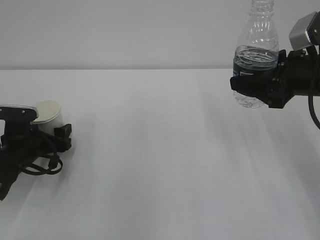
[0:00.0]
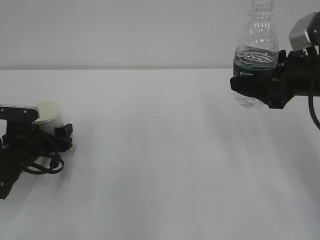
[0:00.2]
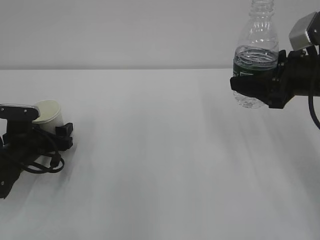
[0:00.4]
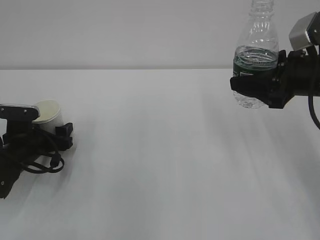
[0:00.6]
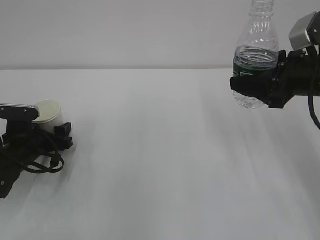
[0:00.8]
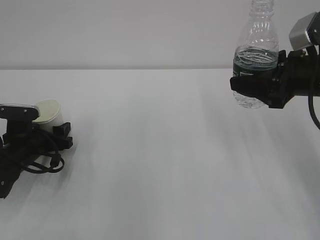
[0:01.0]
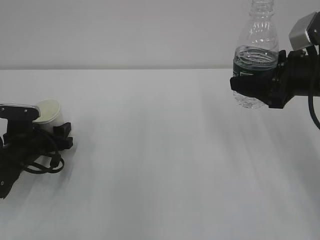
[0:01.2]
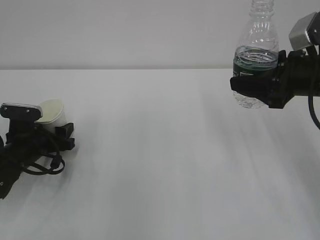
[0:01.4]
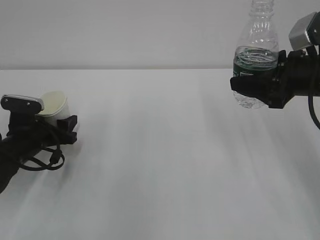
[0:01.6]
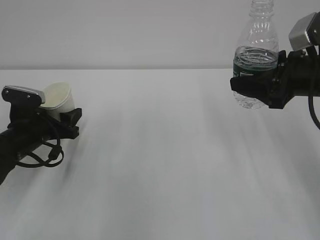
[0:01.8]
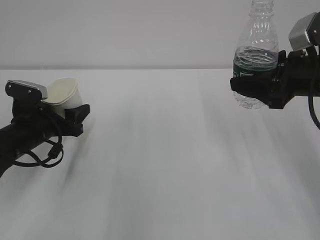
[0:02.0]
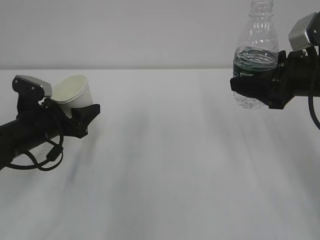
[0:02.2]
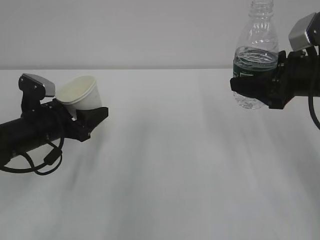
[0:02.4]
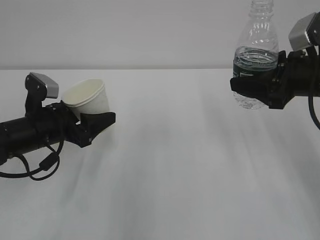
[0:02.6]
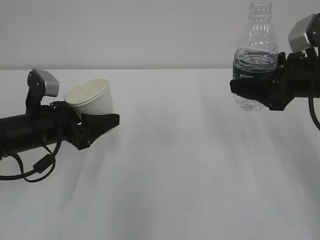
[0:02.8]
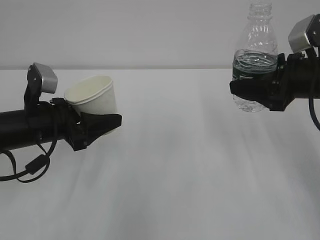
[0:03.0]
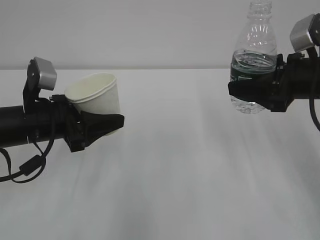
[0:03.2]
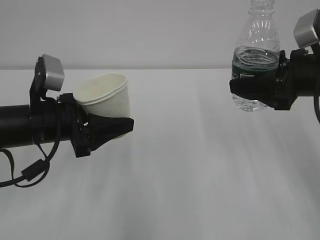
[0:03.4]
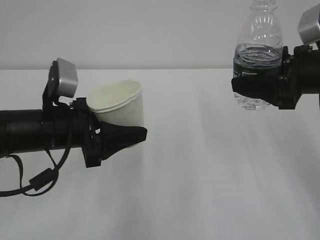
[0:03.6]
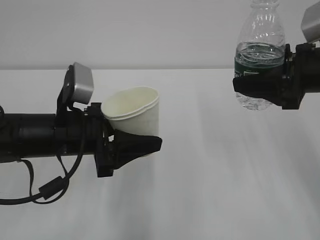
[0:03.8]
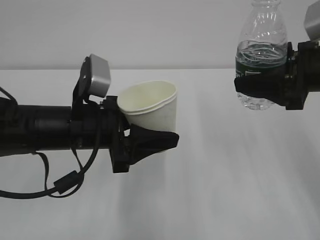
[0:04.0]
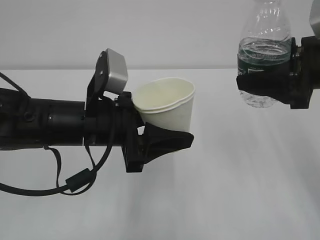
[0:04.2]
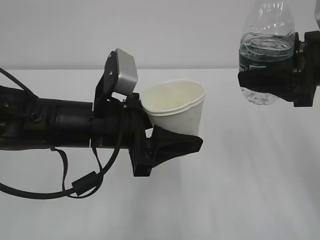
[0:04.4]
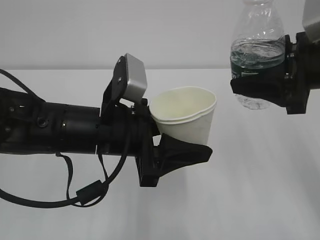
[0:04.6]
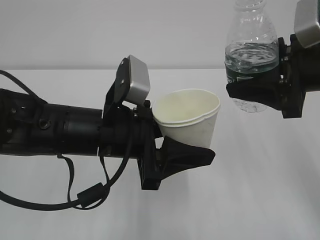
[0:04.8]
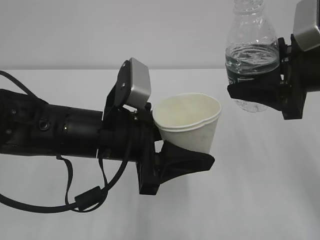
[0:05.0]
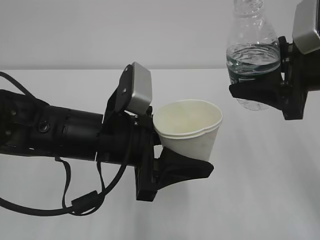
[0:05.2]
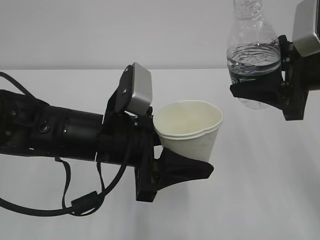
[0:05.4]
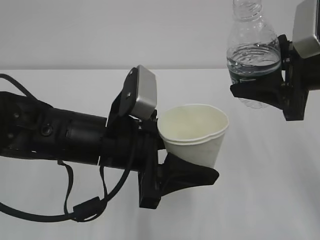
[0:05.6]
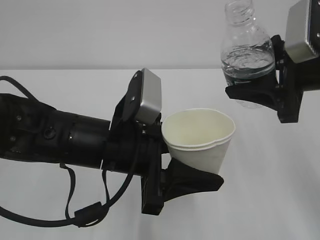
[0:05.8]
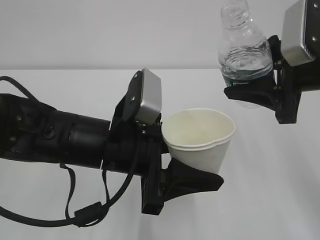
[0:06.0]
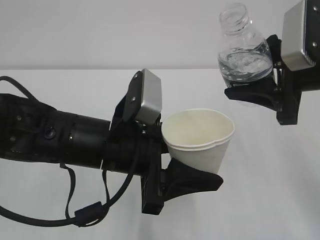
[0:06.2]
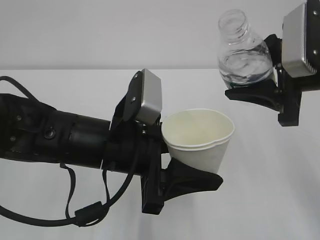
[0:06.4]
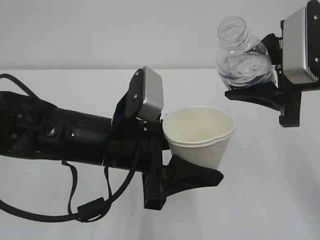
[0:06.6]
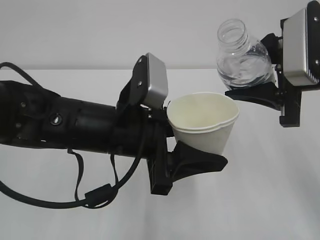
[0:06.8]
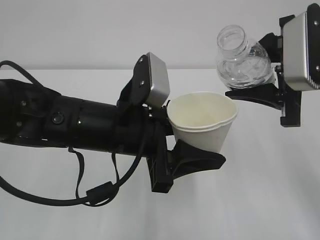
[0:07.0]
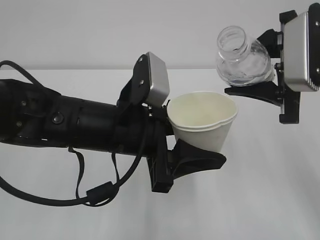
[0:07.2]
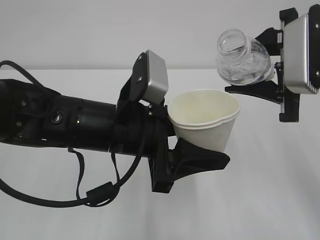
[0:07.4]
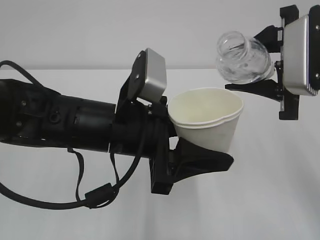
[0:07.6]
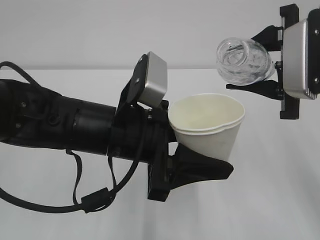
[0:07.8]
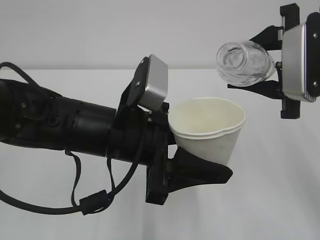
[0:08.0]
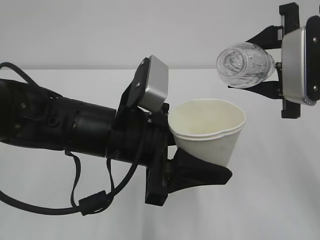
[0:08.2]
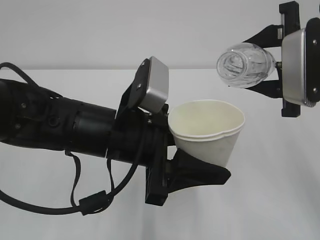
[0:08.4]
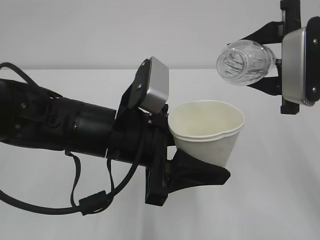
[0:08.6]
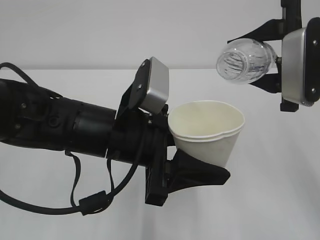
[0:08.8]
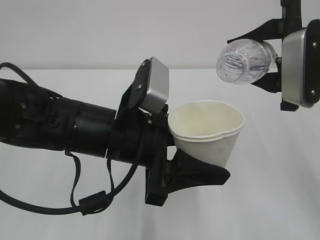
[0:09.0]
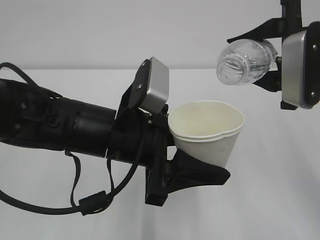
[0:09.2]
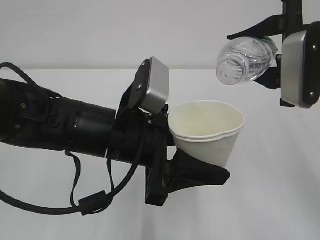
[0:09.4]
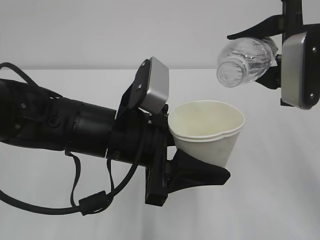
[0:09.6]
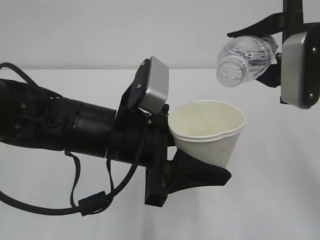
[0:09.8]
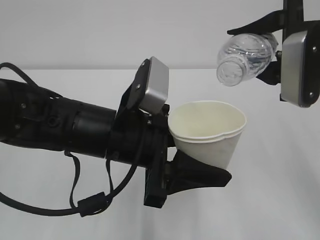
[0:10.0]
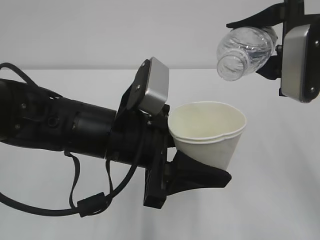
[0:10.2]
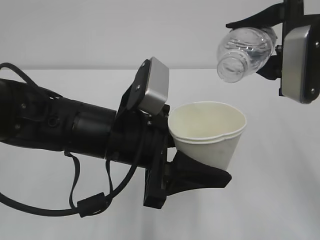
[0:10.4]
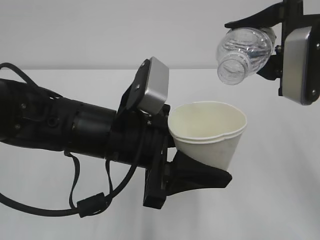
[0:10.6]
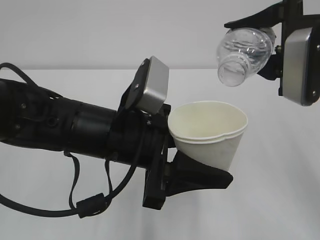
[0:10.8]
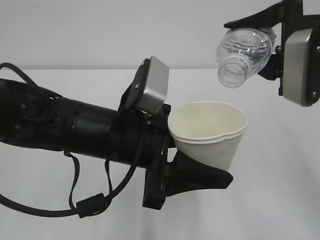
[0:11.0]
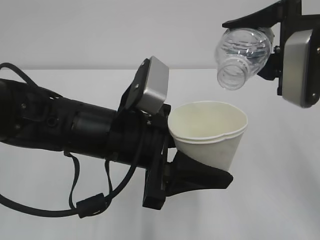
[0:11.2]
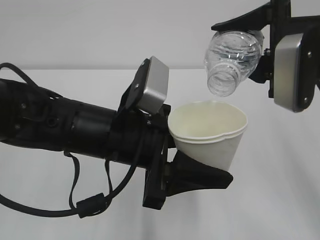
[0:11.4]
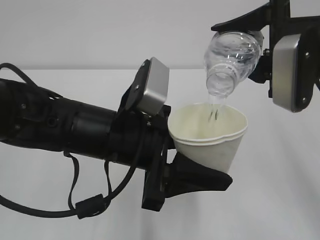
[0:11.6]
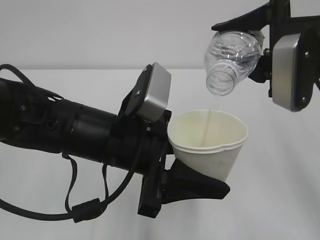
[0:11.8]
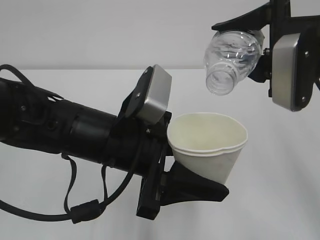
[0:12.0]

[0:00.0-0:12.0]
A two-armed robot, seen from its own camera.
0:00.0 to 0:01.6: The left gripper closes up.
0:01.6 to 0:03.0: The left gripper shifts approximately 10 cm upward and to the right.
0:03.0 to 0:04.4: The right gripper travels upward by approximately 5 cm. The left gripper heads to the right and backward, covering about 15 cm.
0:07.6 to 0:09.0: There are only small adjustments of the grippers.
0:09.0 to 0:12.0: There are only small adjustments of the grippers.

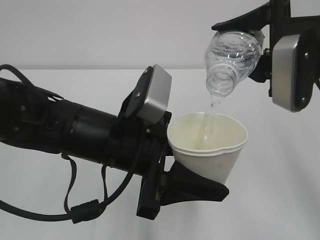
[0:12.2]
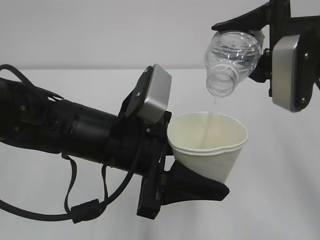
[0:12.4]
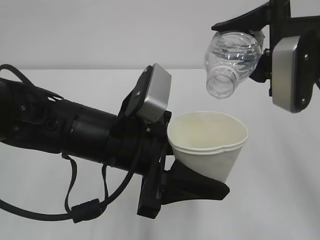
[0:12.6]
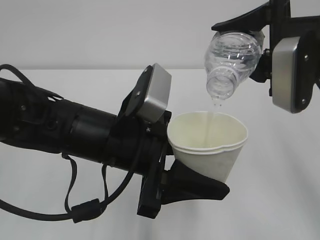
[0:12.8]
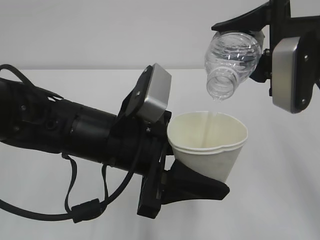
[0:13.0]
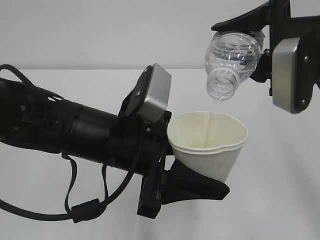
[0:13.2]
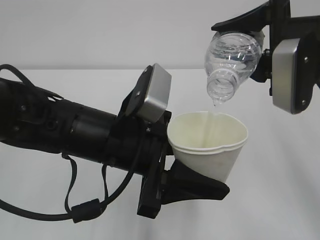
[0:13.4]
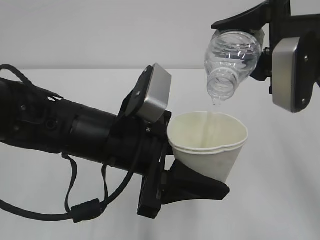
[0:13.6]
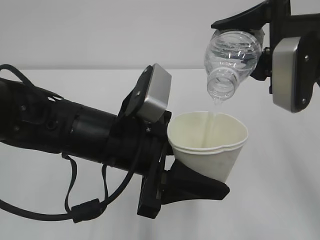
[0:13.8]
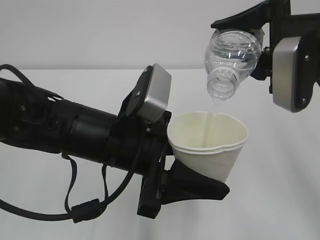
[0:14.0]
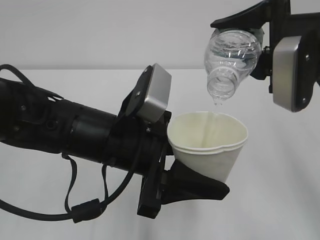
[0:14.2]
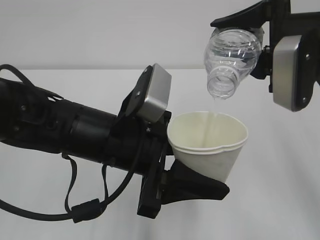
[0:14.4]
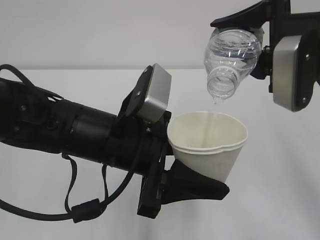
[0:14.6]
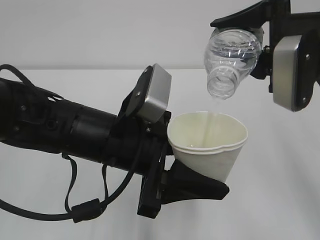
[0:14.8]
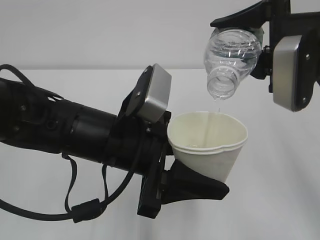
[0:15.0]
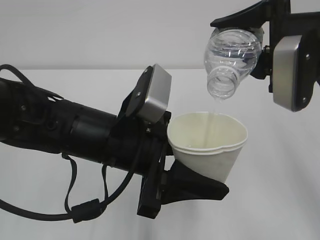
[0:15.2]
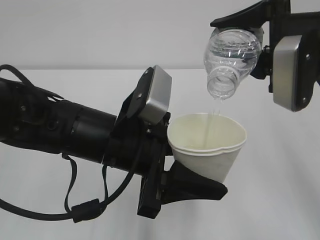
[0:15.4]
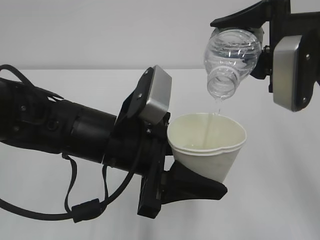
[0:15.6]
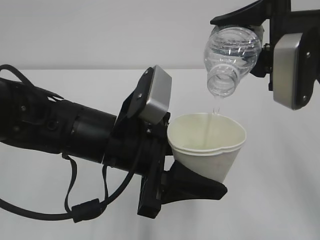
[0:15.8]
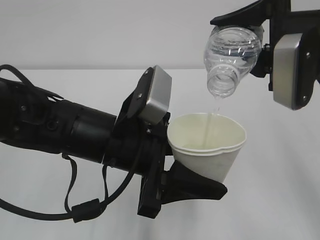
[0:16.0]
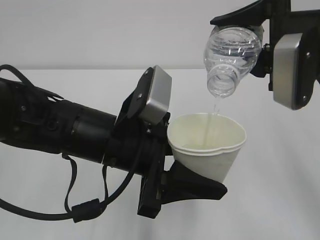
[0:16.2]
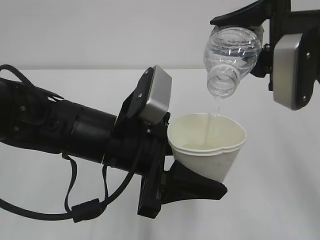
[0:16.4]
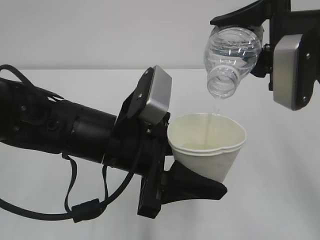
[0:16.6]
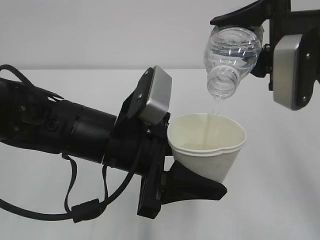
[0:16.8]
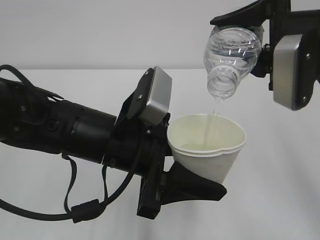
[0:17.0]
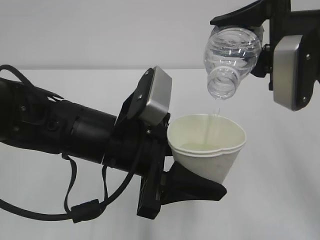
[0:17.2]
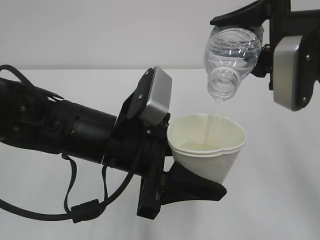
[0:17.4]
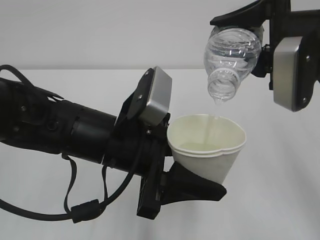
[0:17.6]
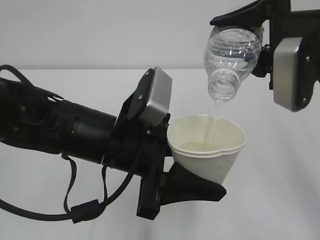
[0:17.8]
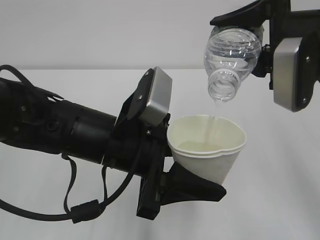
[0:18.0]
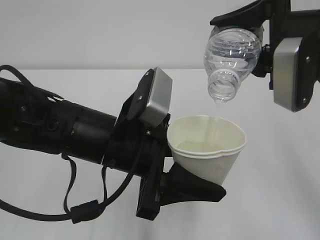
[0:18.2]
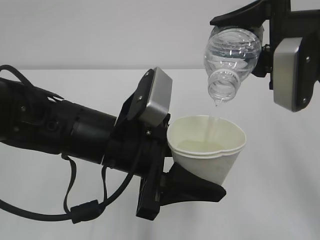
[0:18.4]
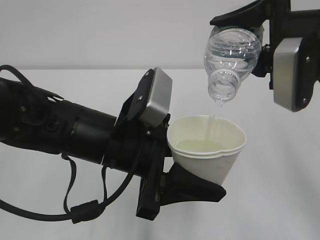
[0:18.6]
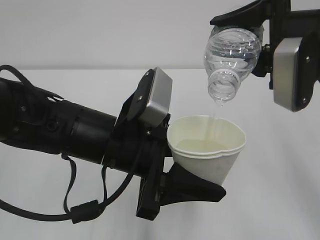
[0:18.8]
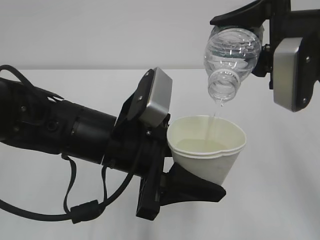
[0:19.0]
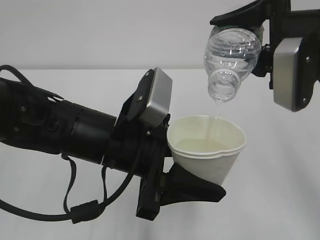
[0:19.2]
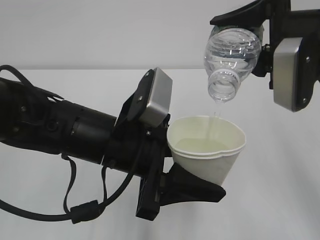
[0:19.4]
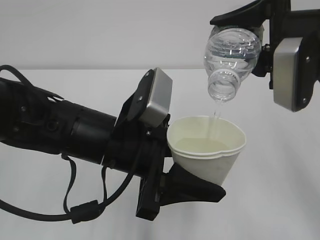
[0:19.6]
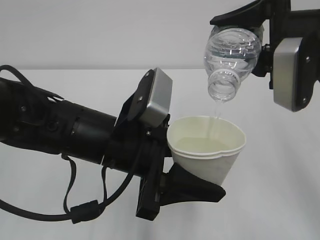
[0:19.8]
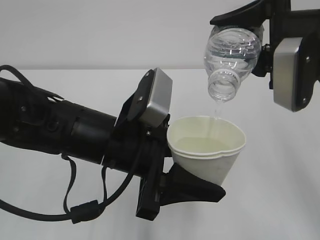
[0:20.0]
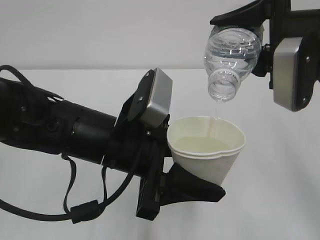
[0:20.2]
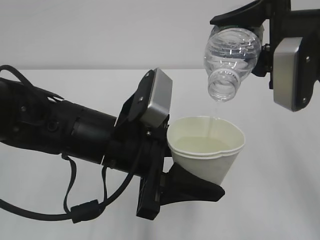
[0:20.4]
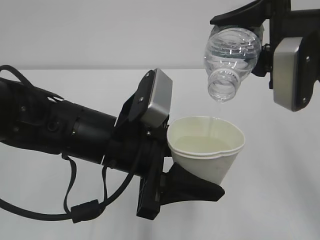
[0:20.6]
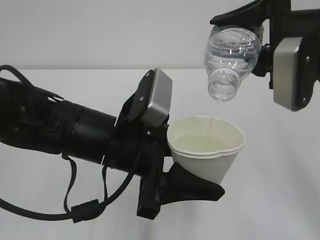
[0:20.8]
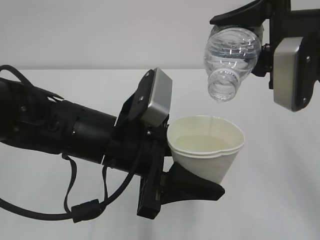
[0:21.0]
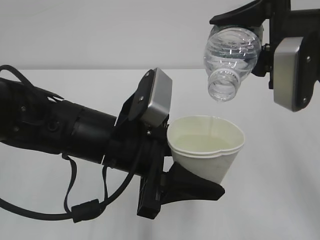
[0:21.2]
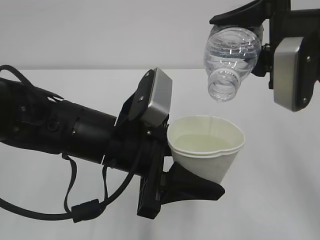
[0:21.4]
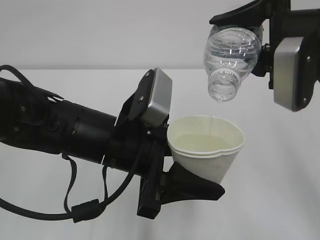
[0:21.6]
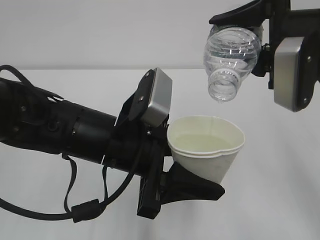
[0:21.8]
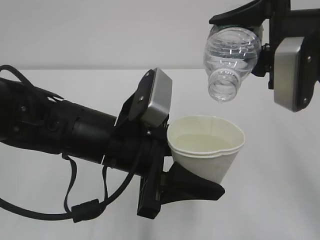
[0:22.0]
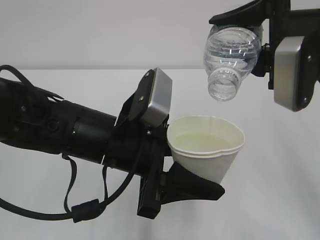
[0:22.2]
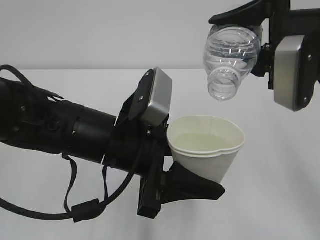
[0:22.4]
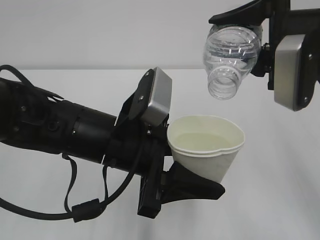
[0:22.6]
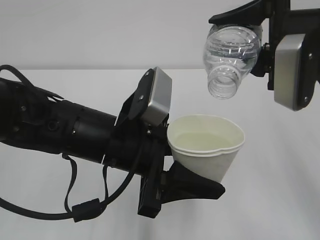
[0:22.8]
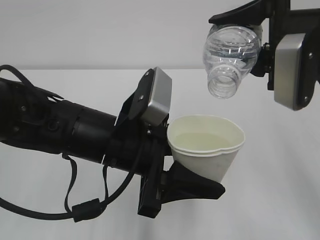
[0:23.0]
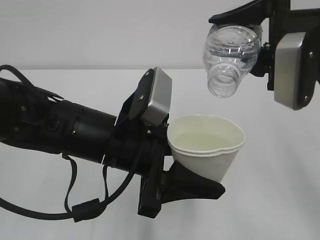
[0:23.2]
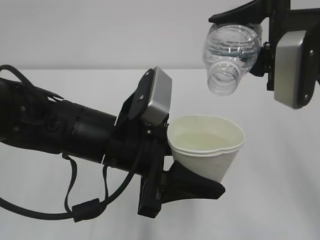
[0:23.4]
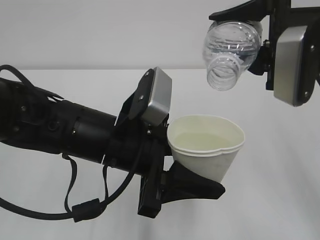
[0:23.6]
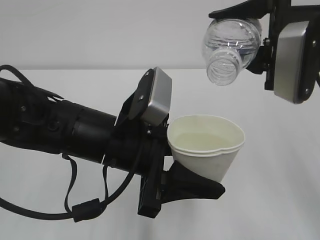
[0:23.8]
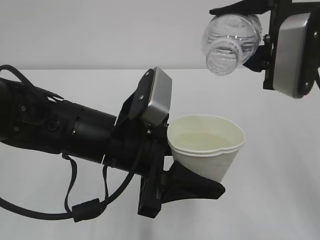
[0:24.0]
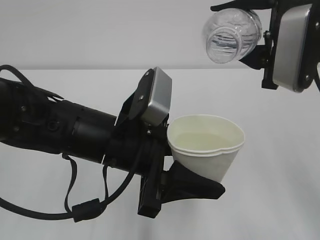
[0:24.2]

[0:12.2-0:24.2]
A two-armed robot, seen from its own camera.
0:12.2 to 0:16.6: Neither gripper changes place.
0:16.6 to 0:22.6: Both grippers stay about where they are.
0:22.6 to 0:24.2: The grippers make only small movements.
